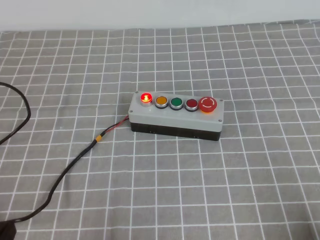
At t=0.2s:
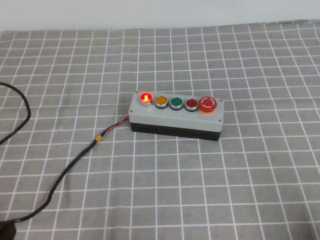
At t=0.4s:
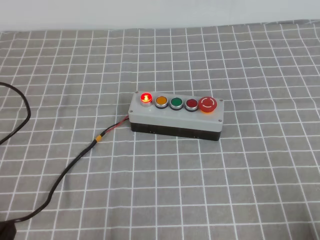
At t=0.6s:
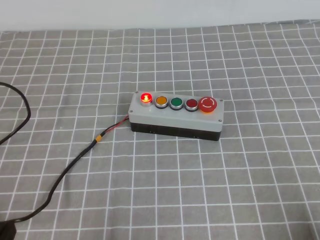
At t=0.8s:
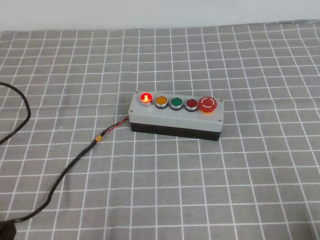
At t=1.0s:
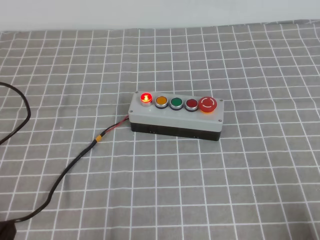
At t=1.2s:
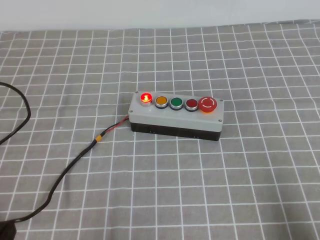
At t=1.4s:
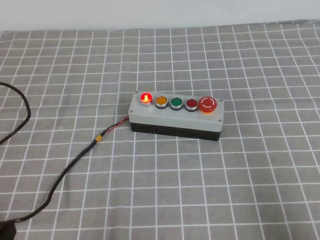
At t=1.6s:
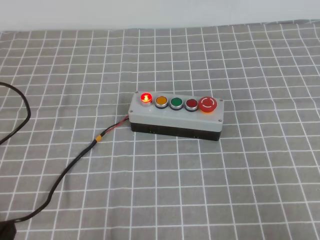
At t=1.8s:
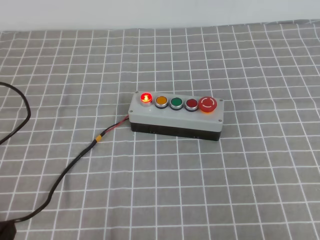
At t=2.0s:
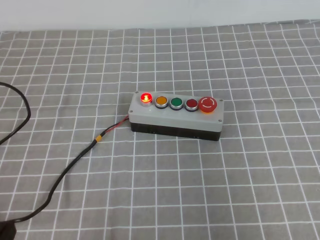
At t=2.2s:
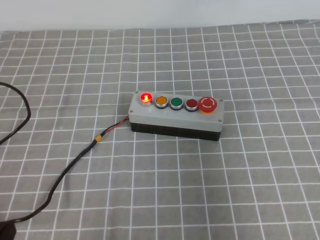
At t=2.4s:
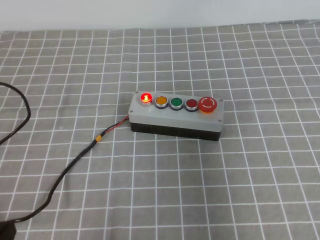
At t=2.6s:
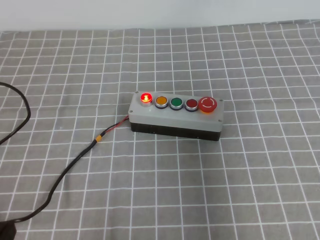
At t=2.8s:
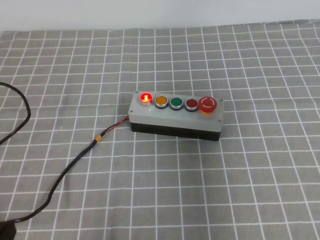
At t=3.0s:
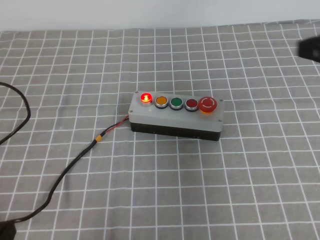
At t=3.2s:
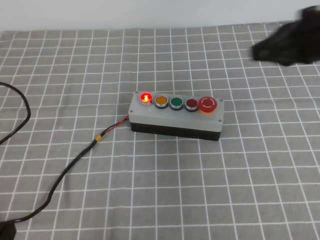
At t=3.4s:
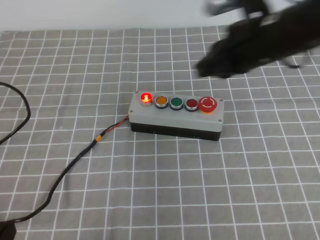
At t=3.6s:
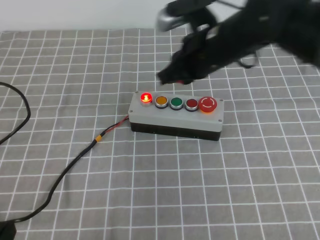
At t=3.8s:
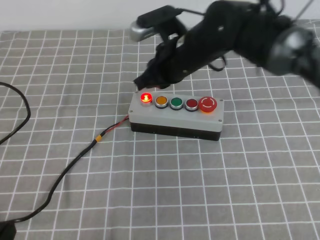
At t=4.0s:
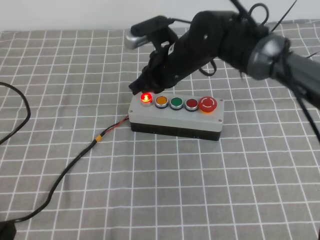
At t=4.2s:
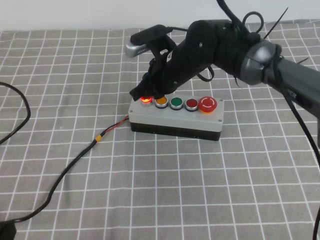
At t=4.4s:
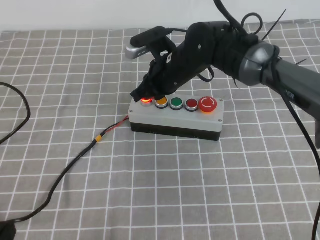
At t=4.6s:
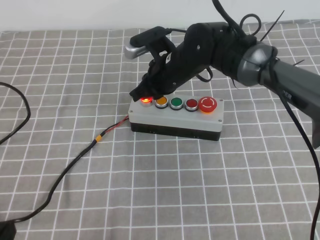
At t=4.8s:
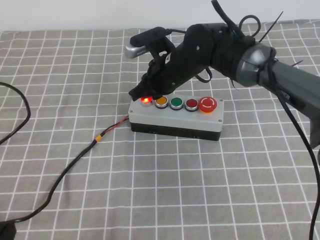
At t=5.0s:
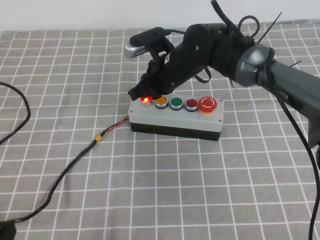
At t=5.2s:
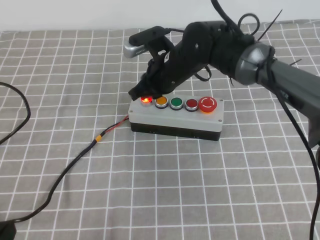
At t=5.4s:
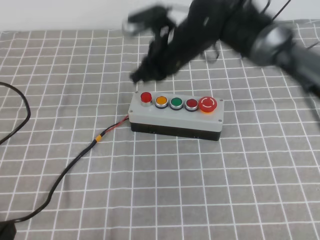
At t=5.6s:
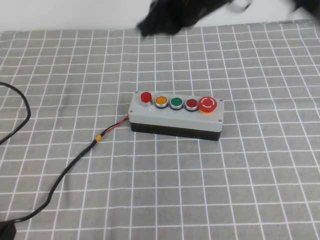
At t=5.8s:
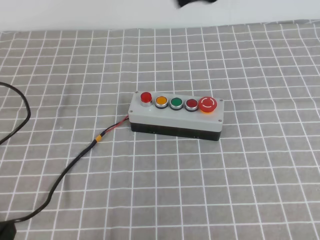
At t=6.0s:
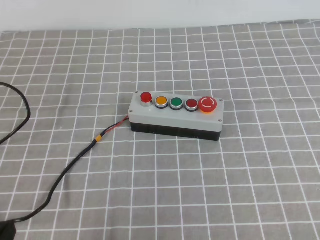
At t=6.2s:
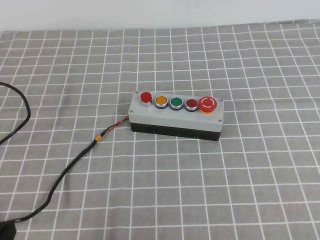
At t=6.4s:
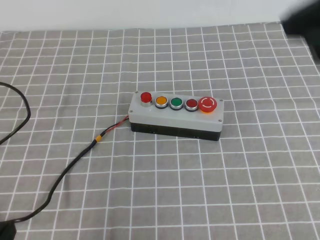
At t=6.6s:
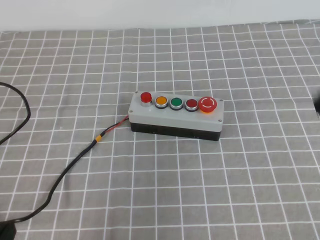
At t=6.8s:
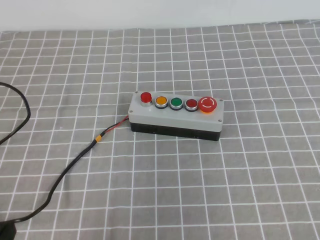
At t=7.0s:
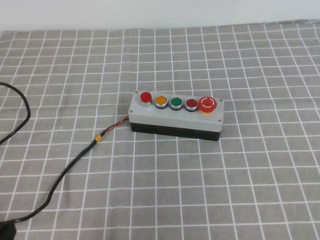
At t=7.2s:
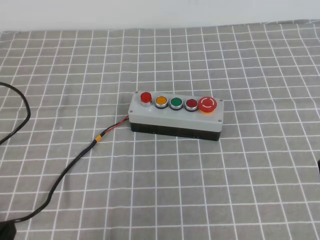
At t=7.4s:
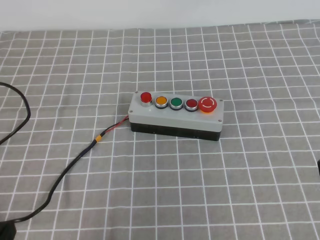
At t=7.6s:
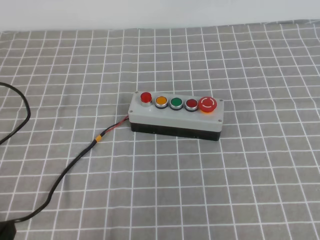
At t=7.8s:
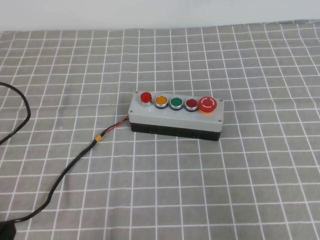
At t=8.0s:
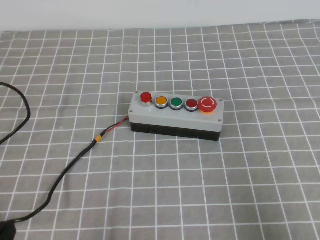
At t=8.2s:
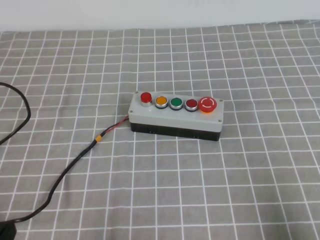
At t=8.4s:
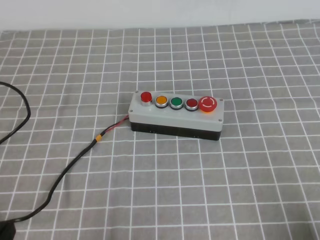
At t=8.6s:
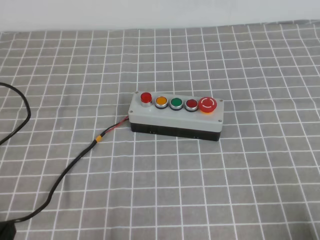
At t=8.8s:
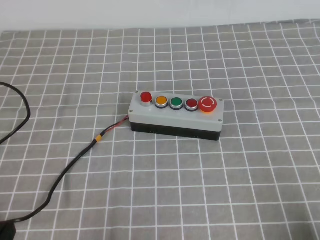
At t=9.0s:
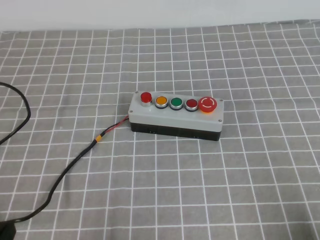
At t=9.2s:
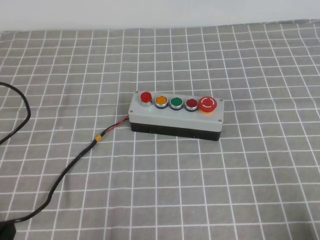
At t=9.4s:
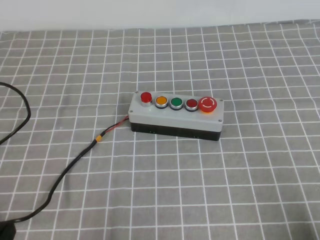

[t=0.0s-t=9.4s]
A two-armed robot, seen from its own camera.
Task of the whole recording: press the button switch on the grey tablecloth with the right gripper to turn off the button.
Step, t=0.0s to t=9.4s: Press the button to turn off.
t=0.0s to t=1.6s: The right gripper heads upward, covering about 10 cm.
t=1.6s to t=3.2s: The right gripper moves forward, to the left and upward, some 30 cm.
t=3.2s to t=4.8s: The right gripper shifts approximately 25 cm to the left, downward and forward.
t=4.8s to t=6.2s: The right gripper is displaced upward, backward and to the right by some 35 cm.
t=6.2s to t=7.8s: The right gripper goes some 25 cm downward, backward and to the right.
t=7.8s to t=9.4s: The right gripper shifts about 15 cm downward.

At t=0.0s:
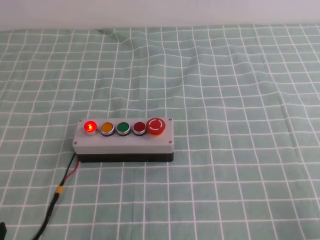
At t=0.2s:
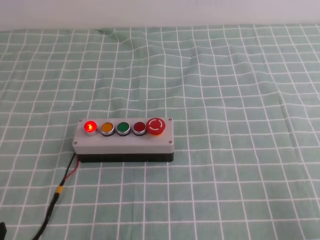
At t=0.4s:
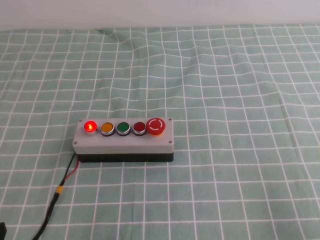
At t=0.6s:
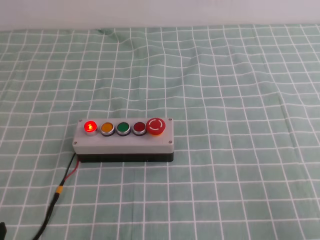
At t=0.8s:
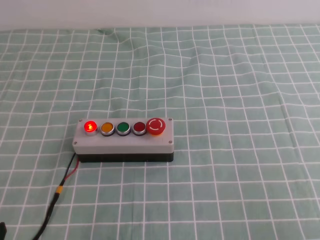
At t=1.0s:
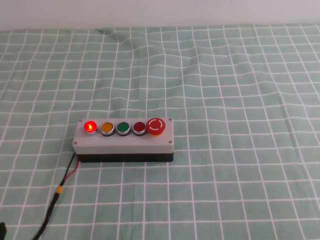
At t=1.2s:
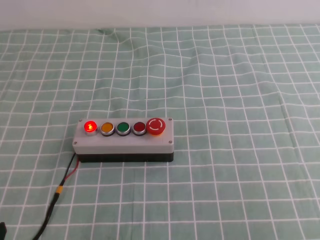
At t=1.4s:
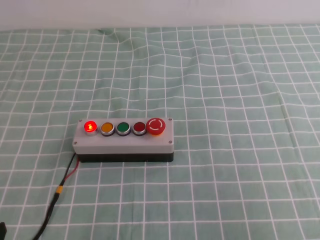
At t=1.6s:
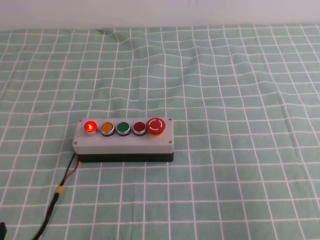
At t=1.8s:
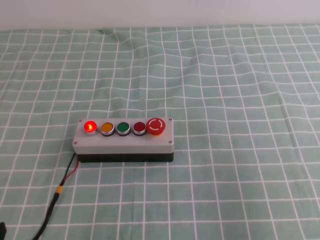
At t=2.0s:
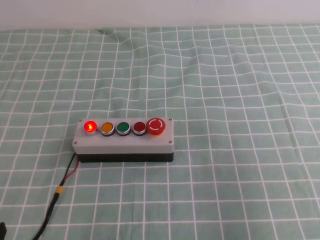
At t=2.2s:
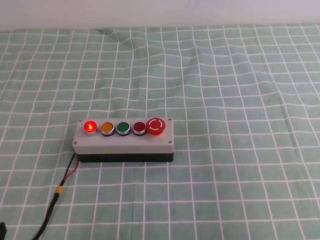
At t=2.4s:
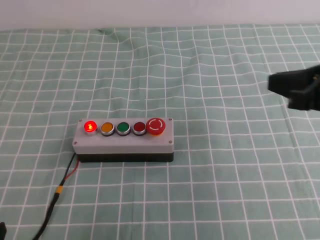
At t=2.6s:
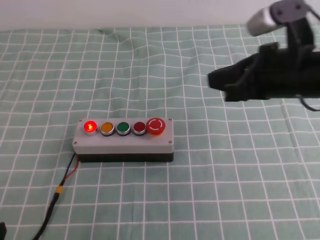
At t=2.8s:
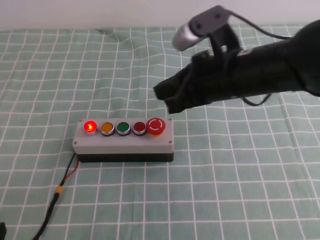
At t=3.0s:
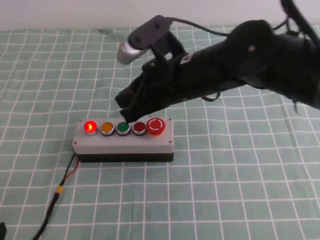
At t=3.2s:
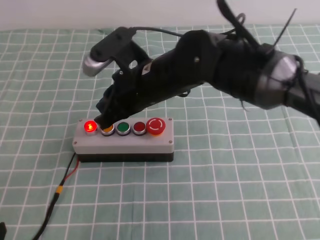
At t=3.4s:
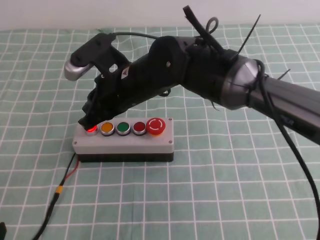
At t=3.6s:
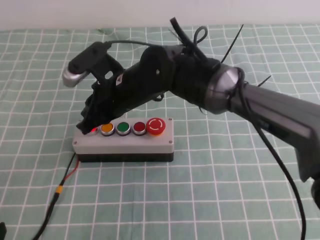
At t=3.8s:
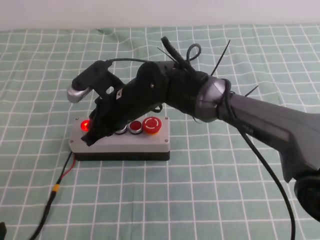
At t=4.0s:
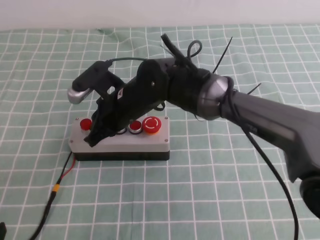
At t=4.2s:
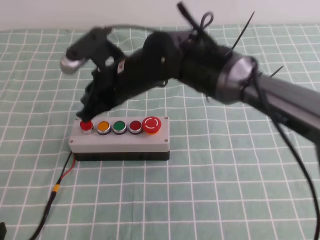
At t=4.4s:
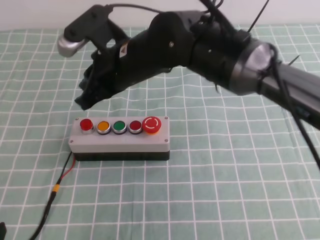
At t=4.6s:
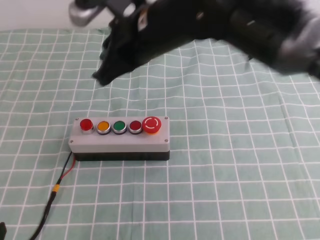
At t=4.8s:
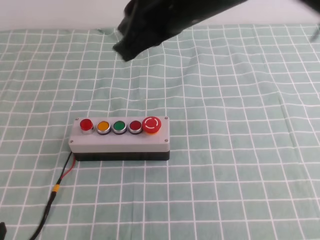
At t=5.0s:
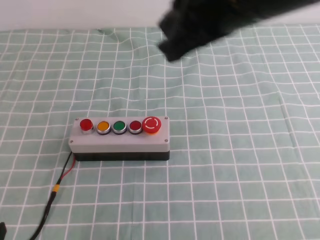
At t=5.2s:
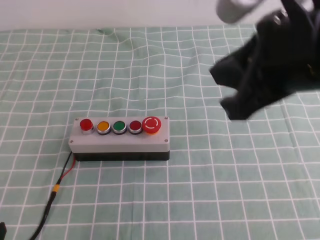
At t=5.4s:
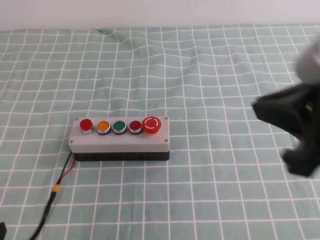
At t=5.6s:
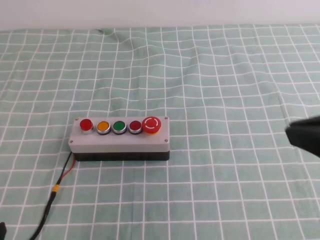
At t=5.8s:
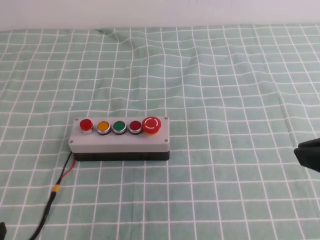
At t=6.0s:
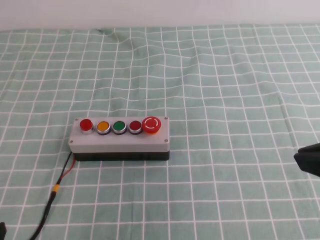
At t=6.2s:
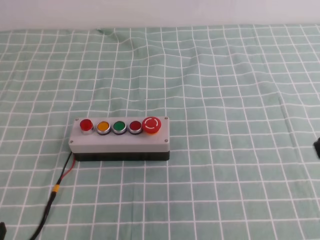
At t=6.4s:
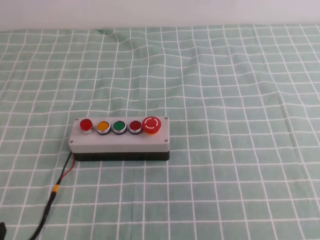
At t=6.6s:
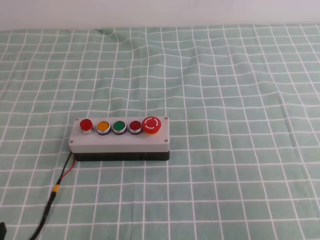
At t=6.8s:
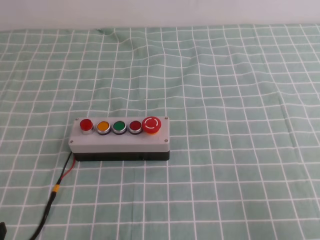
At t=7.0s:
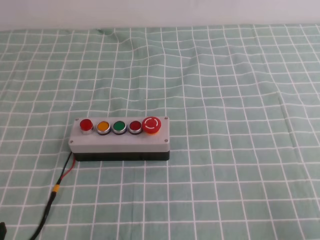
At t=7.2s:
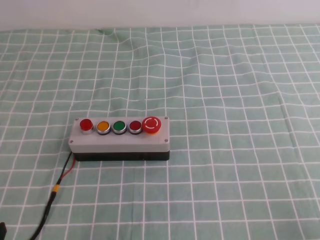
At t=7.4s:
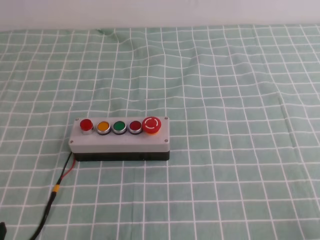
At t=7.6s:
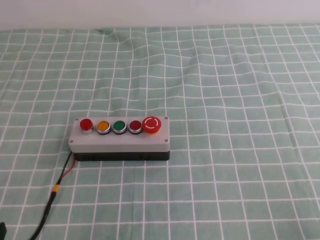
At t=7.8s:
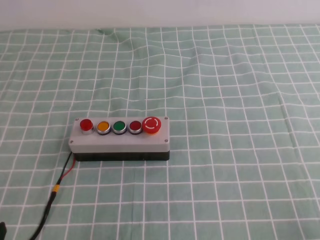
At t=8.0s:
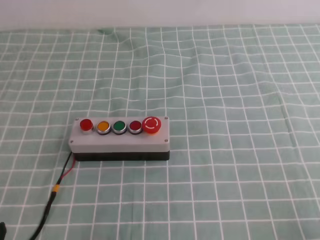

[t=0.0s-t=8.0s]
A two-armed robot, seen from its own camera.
Task of the whole recording: press the button switch on the cyan tablecloth with the right gripper to turn off the button.
Step, t=0.0s to t=8.0s: Press the button to turn off.
t=0.0s to t=1.6s: The right gripper heads upward, covering about 15 cm.
t=1.6s to t=3.2s: The right gripper is displaced to the left and forward by roughly 40 cm.
t=3.2s to t=4.8s: The right gripper goes approximately 15 cm upward.
t=4.8s to t=6.4s: The right gripper moves to the right and backward, some 30 cm.
t=6.4s to t=8.0s: The right gripper heads downward, covering approximately 20 cm.
